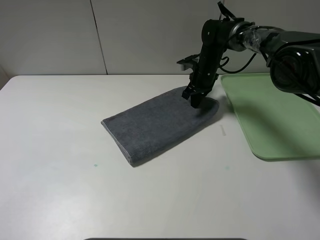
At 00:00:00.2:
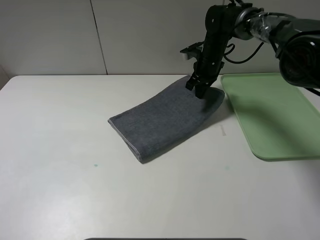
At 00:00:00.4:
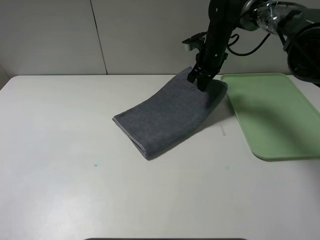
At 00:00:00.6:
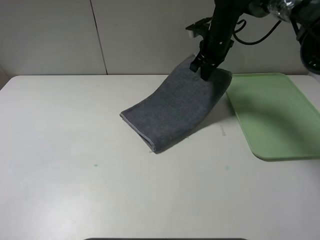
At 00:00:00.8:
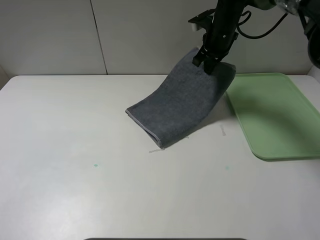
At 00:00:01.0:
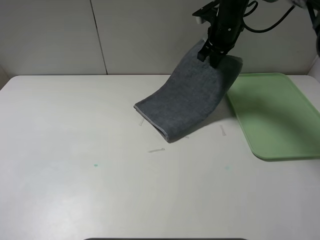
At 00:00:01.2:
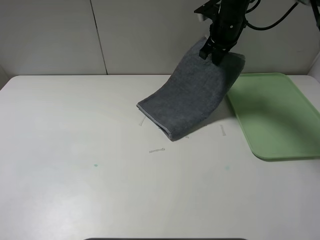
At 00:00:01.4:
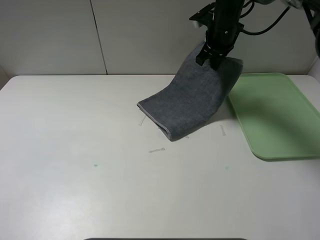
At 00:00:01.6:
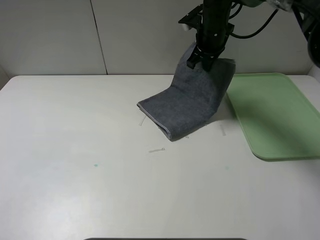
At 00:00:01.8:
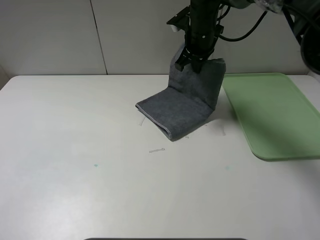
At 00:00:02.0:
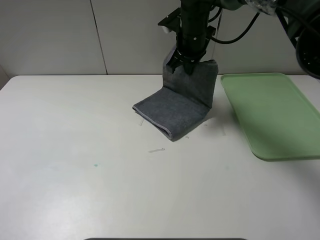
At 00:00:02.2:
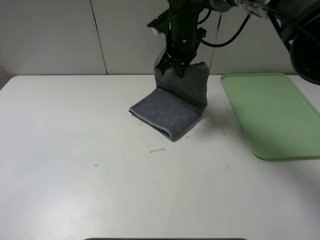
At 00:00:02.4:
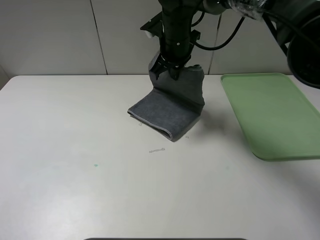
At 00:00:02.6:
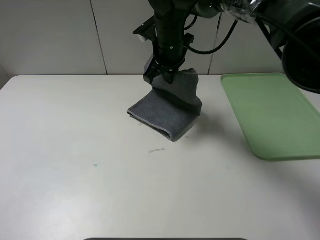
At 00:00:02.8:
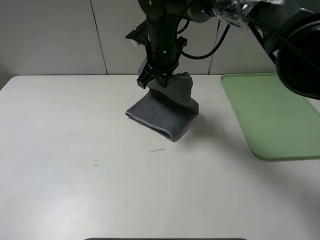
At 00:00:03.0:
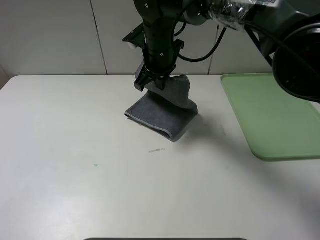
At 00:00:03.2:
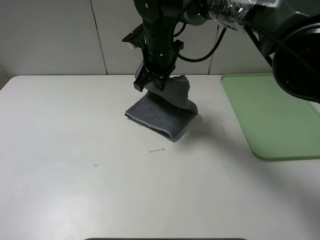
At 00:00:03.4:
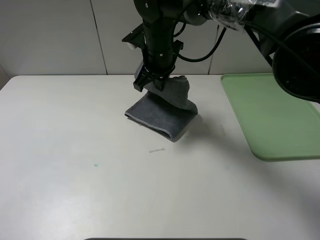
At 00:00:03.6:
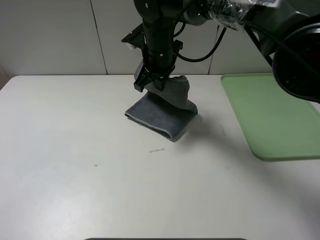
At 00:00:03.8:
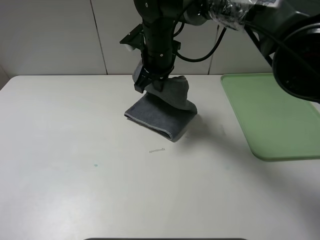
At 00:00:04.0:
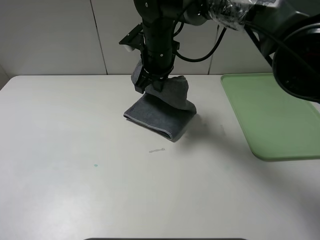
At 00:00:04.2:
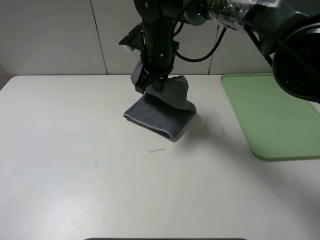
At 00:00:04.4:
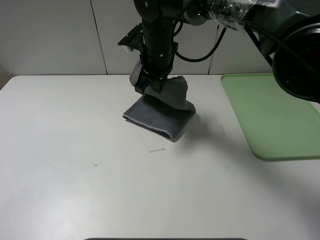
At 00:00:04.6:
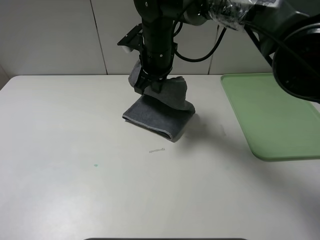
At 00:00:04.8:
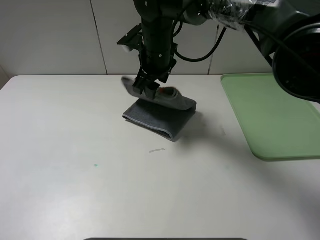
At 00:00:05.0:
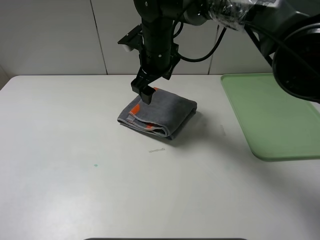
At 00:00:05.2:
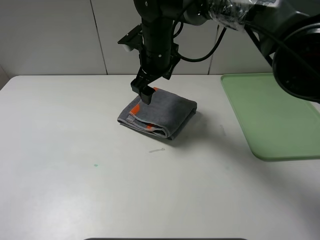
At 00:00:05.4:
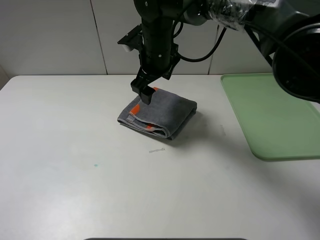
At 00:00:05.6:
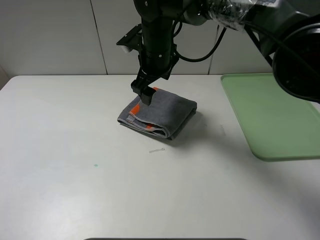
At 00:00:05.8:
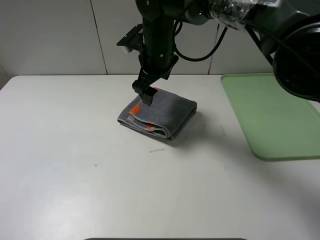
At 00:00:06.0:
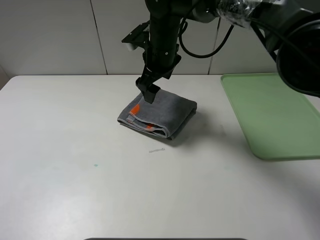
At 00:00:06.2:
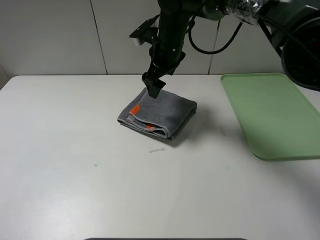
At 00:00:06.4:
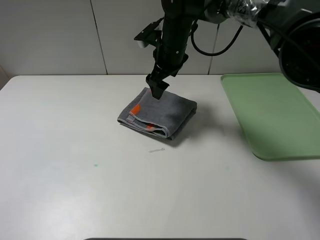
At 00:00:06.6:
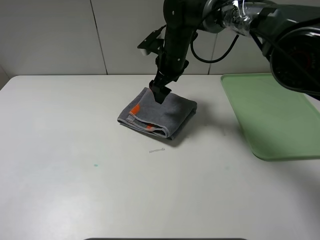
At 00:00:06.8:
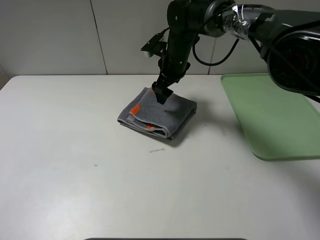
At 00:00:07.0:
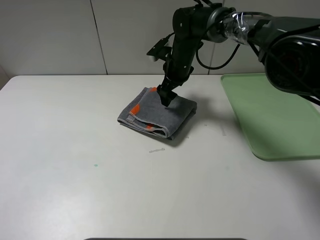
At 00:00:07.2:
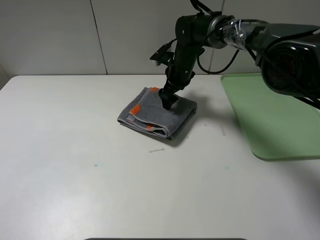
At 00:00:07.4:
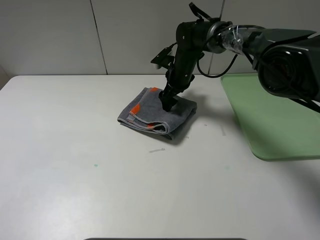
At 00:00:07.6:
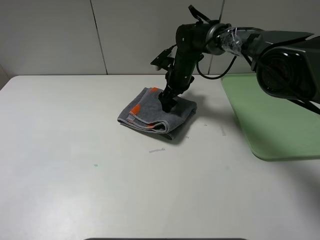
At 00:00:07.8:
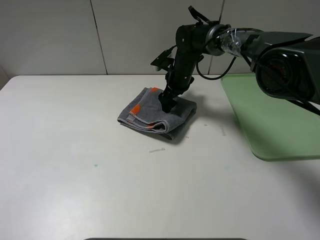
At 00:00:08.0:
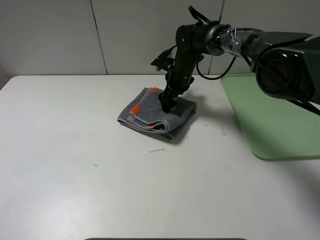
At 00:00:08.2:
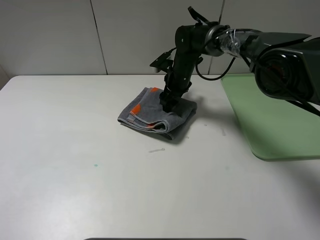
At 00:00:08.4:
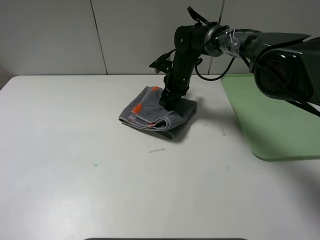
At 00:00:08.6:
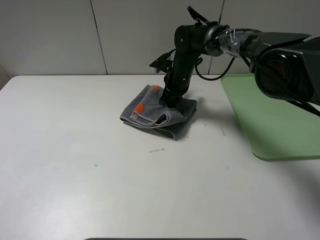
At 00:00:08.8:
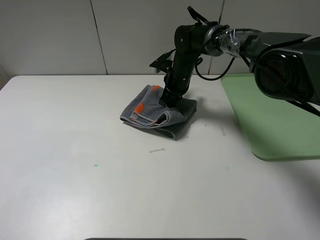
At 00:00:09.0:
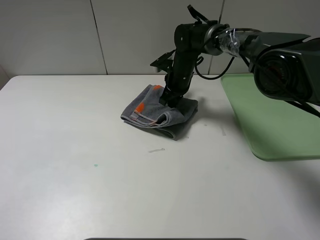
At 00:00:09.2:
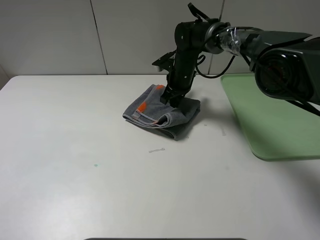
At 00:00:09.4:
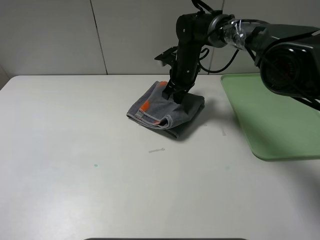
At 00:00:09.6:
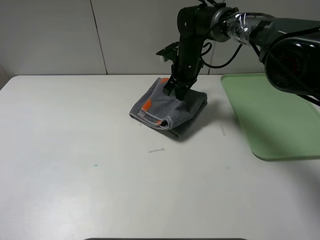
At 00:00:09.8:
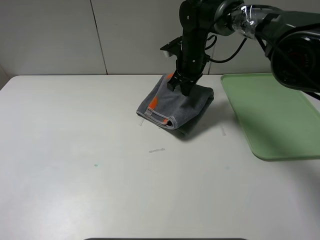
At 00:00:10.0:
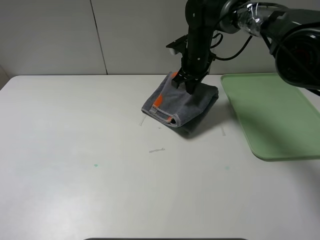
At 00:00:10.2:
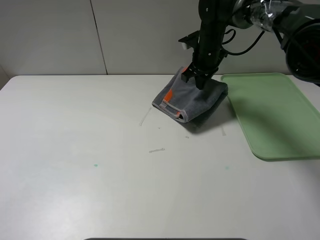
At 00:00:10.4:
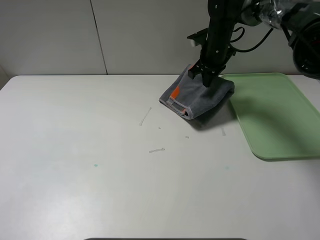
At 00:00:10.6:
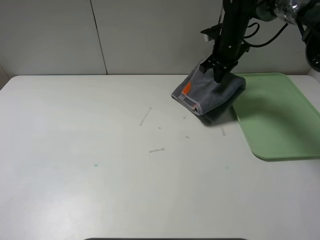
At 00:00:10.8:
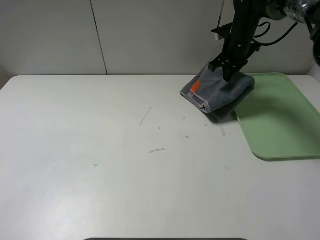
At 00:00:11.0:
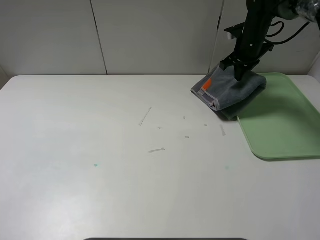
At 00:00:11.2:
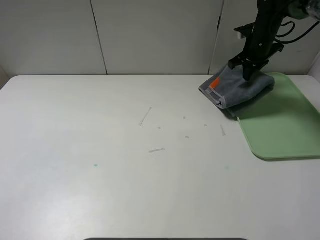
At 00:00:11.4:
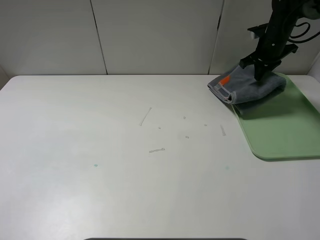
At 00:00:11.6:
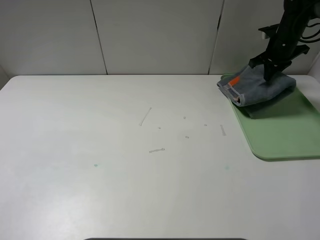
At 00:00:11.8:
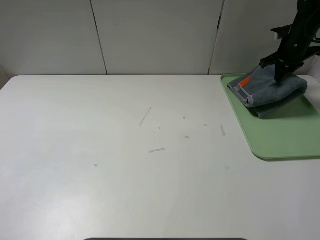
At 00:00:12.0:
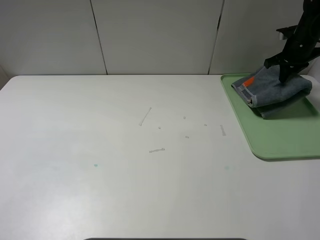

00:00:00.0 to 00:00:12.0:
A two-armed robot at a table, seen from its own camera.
Step, 00:00:00.0 to 00:00:04.8: Fold the grey towel from right to left with right gripper.
00:00:00.0 to 00:00:01.6: The right gripper moves upward, some 10 cm.
00:00:01.6 to 00:00:03.0: The right gripper heads to the left and backward, covering roughly 15 cm.
00:00:03.0 to 00:00:04.4: The grippers stay close to where they were, moving slightly.
00:00:04.4 to 00:00:06.0: The right gripper opens.
00:00:06.0 to 00:00:07.6: The right gripper travels downward, forward and to the right by about 15 cm.
00:00:07.6 to 00:00:09.0: The right gripper closes up.
00:00:09.0 to 00:00:10.4: The right gripper heads to the right and upward, covering about 10 cm.
00:00:10.4 to 00:00:12.0: The right gripper shifts approximately 20 cm to the right.

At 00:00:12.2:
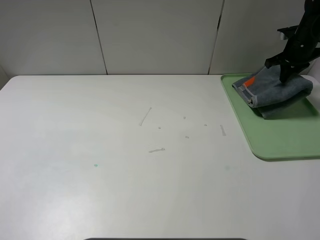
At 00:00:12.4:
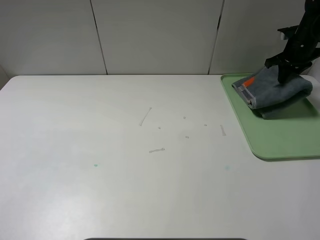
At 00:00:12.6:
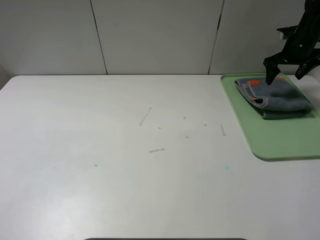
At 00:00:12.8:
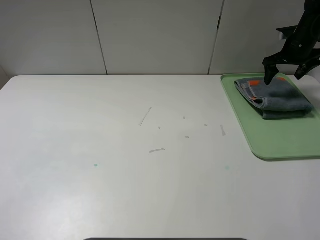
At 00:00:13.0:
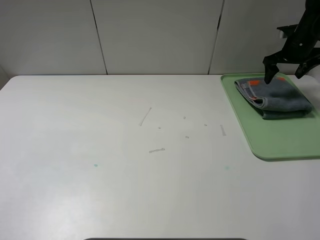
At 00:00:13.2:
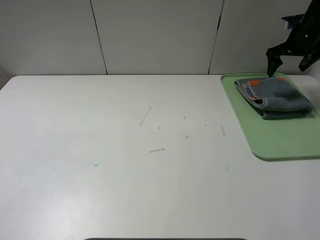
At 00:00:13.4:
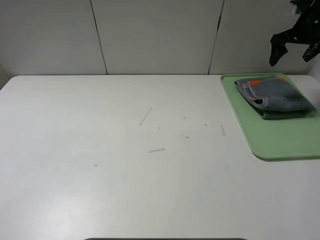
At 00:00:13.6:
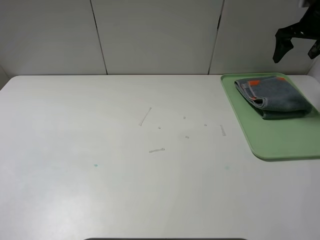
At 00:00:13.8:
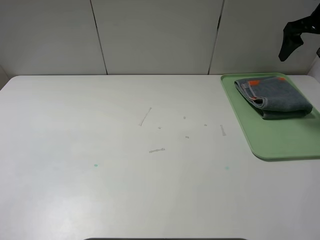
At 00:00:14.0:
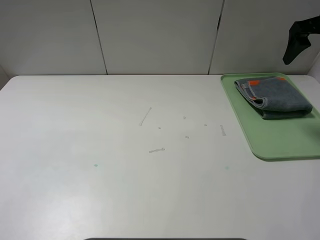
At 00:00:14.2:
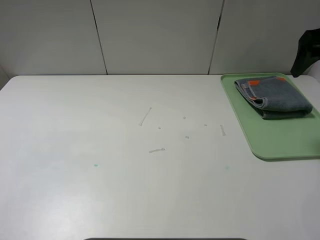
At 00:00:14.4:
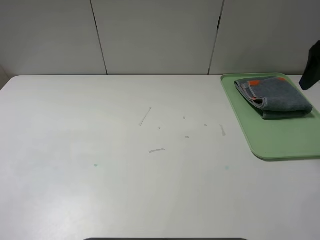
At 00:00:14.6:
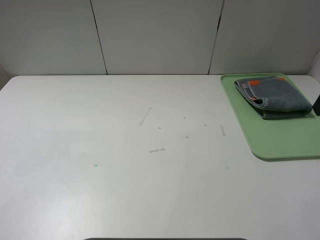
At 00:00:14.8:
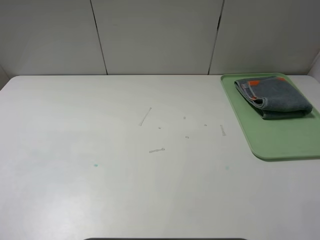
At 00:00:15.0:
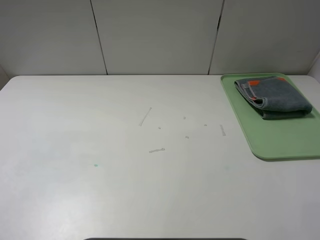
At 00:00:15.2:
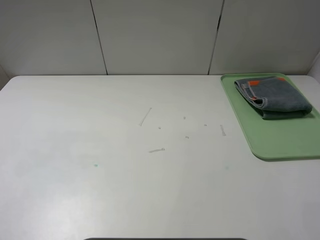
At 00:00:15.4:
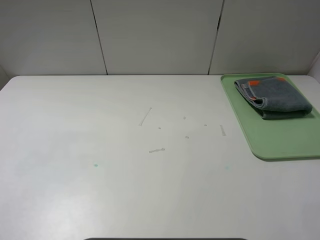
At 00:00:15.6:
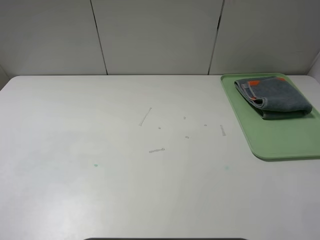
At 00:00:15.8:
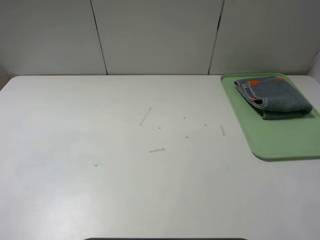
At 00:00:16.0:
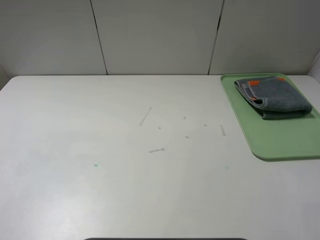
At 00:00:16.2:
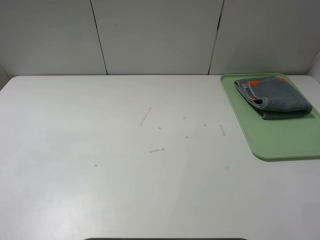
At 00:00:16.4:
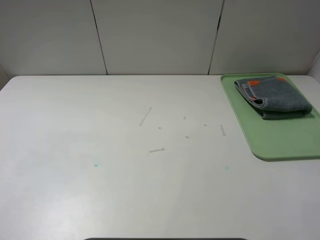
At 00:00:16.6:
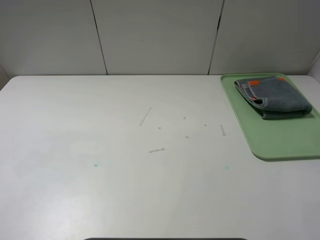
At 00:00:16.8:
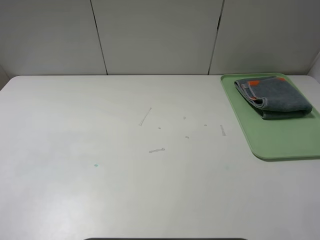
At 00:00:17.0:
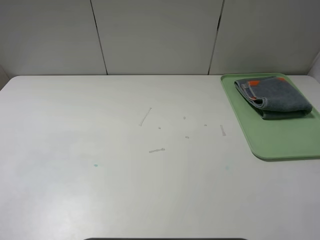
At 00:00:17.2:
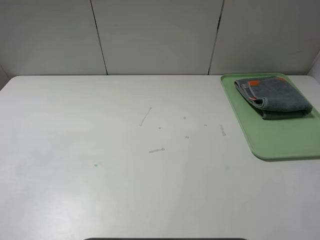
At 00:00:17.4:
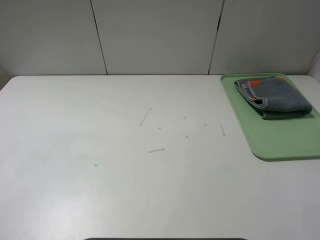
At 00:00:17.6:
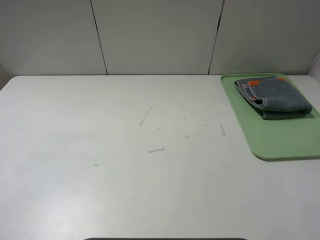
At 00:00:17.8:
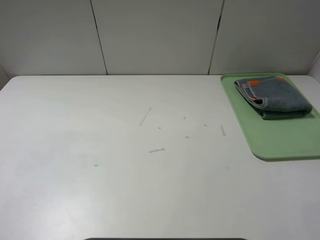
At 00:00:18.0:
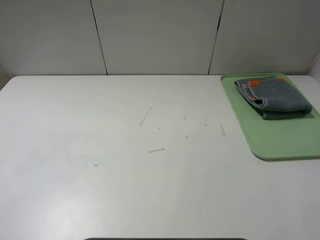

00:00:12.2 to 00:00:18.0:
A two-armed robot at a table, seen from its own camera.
00:00:12.2 to 00:00:13.6: The right gripper travels upward by roughly 10 cm, and opens up.
00:00:13.6 to 00:00:15.0: The right gripper heads backward, covering roughly 35 cm.
00:00:16.6 to 00:00:18.0: Neither gripper changes place.
